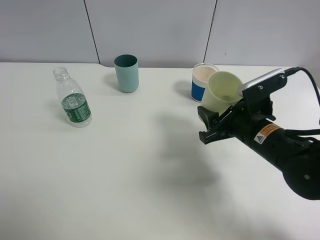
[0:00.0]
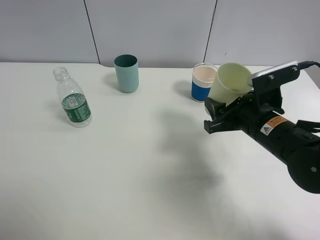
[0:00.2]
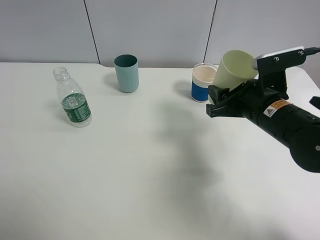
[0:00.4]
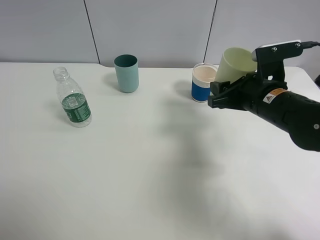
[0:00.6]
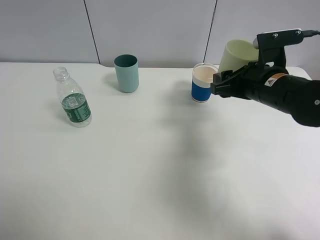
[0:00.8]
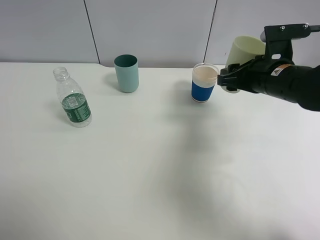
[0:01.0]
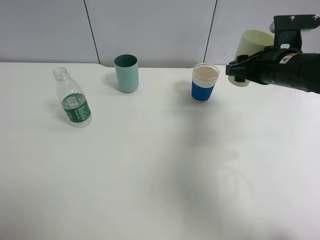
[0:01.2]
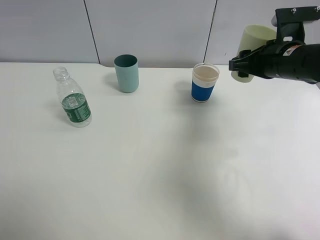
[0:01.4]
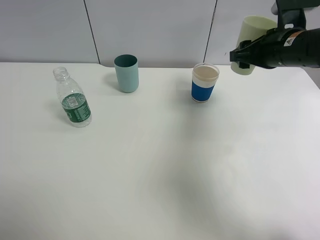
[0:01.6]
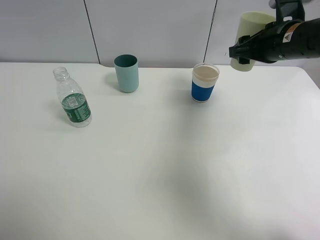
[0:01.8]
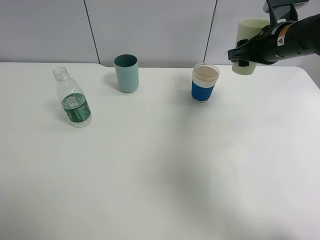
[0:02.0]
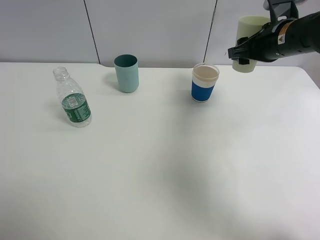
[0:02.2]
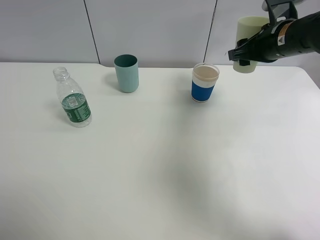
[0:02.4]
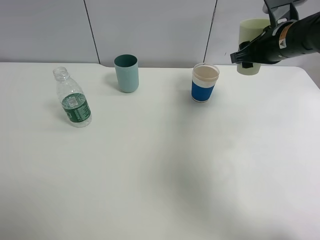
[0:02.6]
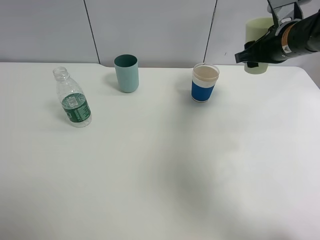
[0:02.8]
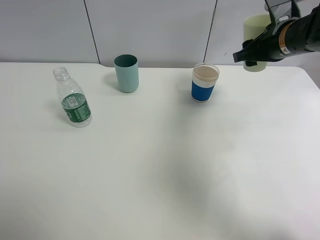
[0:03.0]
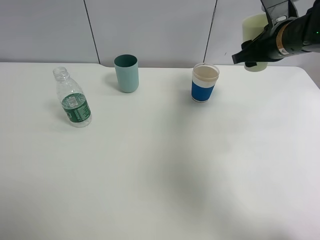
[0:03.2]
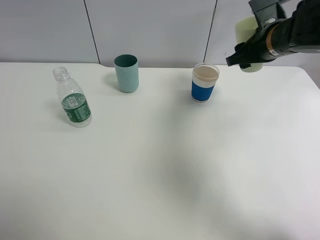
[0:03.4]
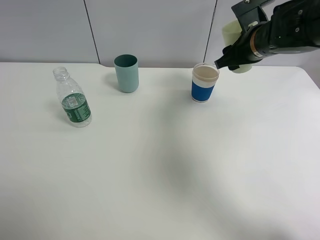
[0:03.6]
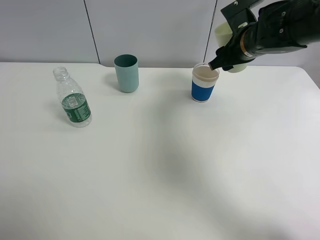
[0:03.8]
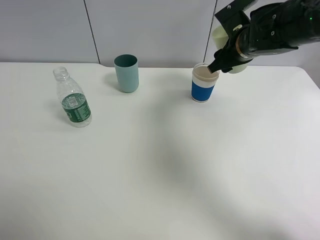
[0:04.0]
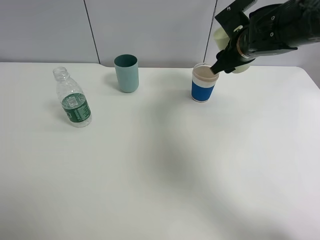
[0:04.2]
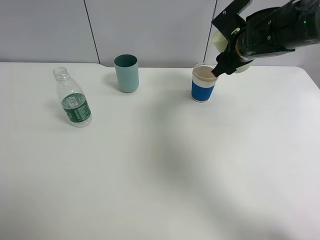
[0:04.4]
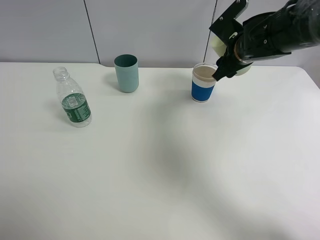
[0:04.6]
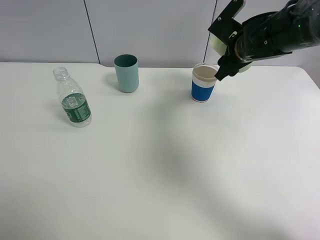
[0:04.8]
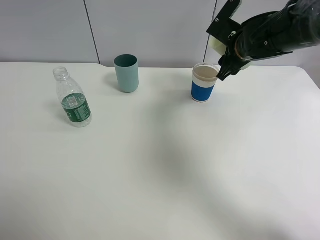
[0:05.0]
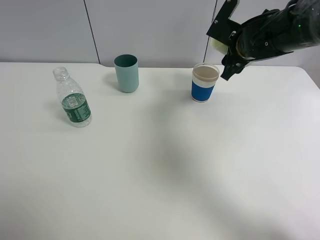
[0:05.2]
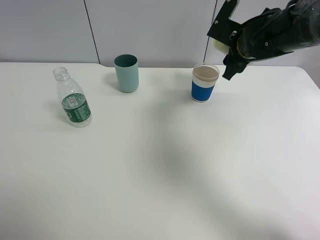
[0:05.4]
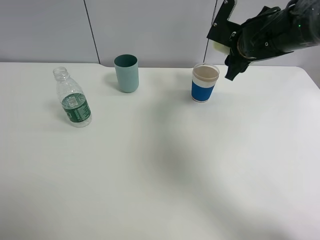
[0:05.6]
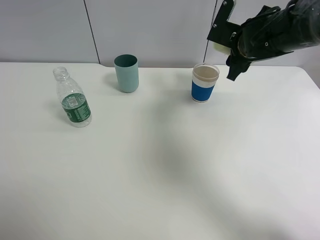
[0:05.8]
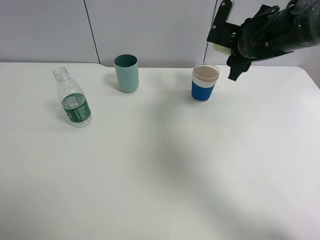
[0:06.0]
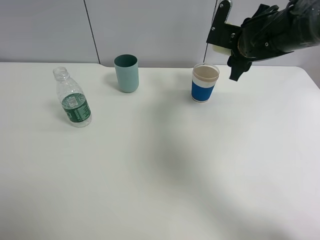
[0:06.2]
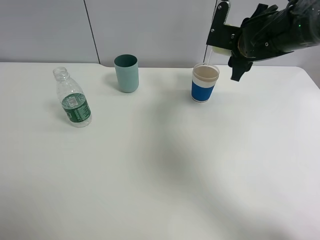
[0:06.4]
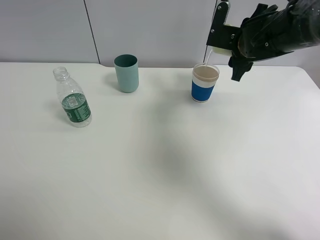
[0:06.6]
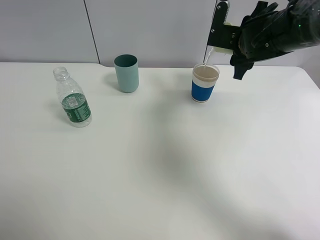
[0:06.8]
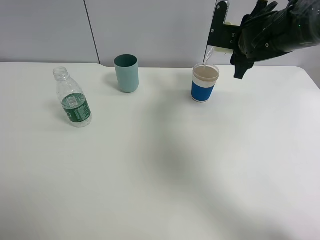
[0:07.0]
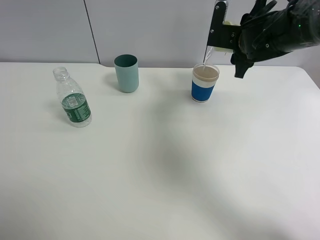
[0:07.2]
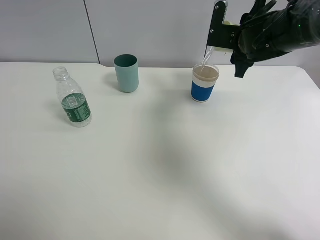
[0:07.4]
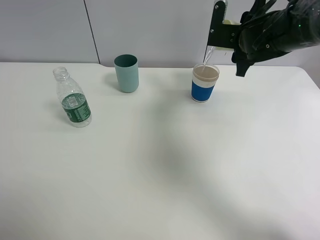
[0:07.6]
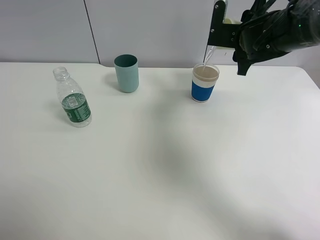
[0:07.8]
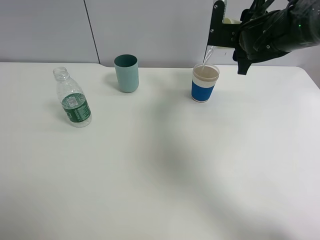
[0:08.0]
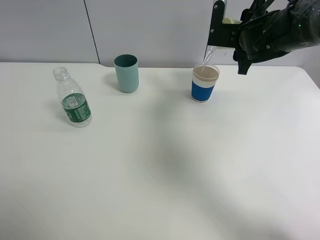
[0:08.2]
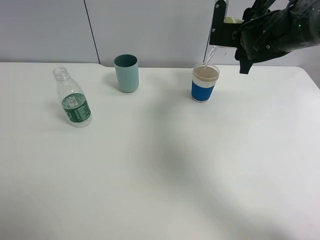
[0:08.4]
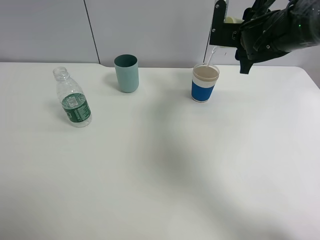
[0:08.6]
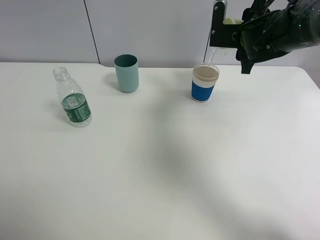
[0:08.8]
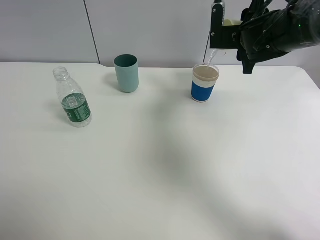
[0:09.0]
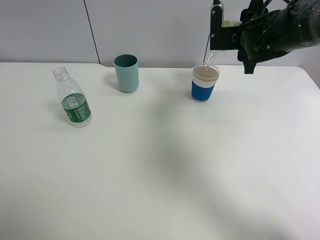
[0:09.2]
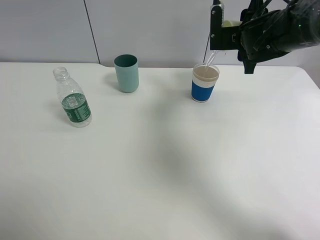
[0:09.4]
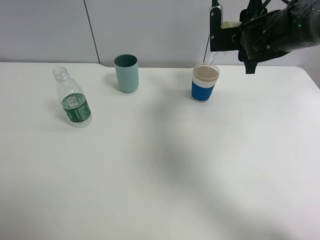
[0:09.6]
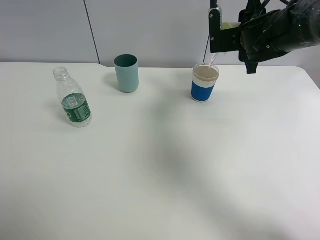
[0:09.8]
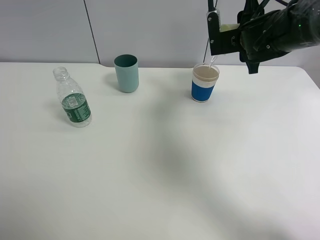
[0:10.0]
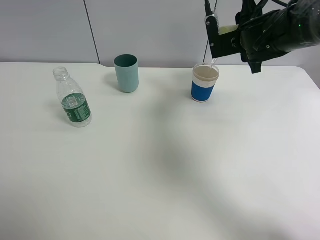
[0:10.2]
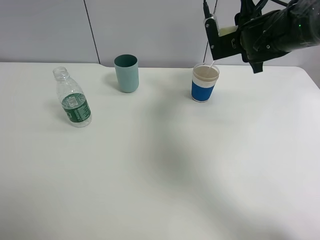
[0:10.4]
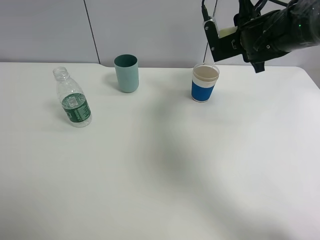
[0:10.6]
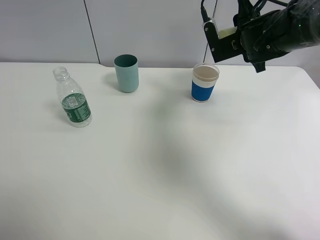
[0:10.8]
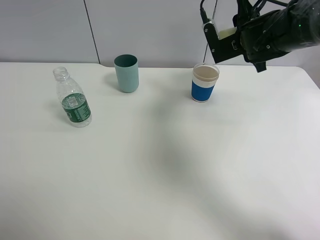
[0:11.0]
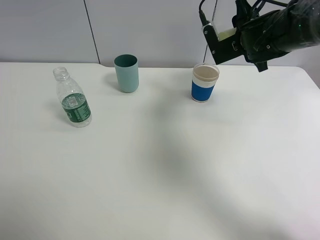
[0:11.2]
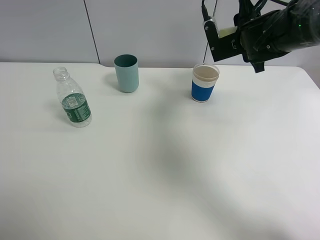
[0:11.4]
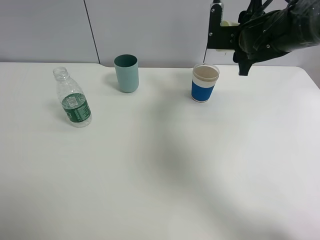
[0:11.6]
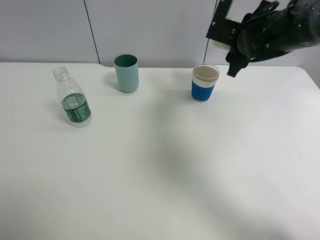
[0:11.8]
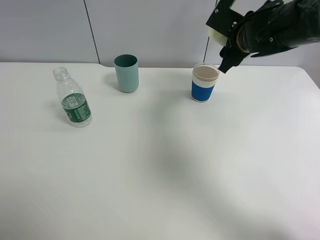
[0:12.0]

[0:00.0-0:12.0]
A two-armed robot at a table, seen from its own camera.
Task of the whole recording: use a clamp to hold the bottle of the drink, pour the beverage into a random cup, then clamp the cup containing the drink and pour the drink into another random cup.
Step, 0:00.8 to 0:11.8: Pour water into the paper cup with right gripper.
0:00.0 to 0:01.6: The right gripper shifts some 15 cm forward, upward and to the right.
0:01.6 to 0:03.0: The grippers make only small movements.
0:03.0 to 0:04.4: The right gripper goes some 5 cm to the left.
0:06.0 to 0:07.6: The grippers make only small movements.
0:07.6 to 0:09.0: There are only small adjustments of the grippers.
0:09.0 to 0:10.4: The grippers stay close to where they were, moving slightly.

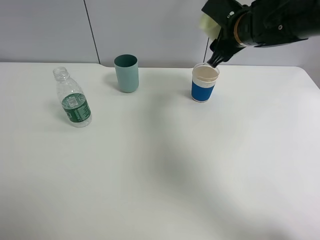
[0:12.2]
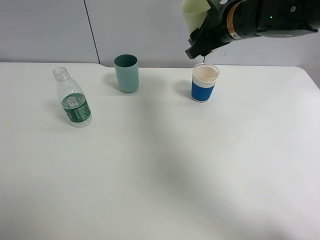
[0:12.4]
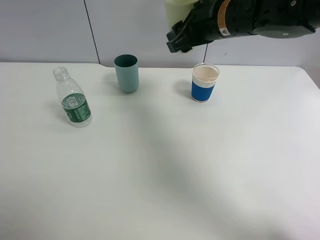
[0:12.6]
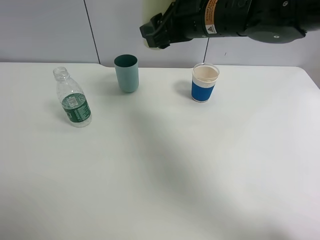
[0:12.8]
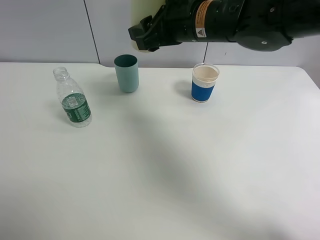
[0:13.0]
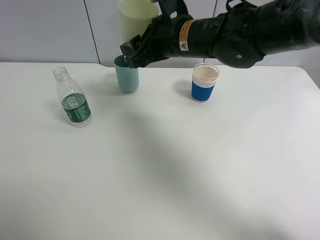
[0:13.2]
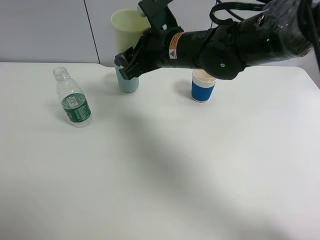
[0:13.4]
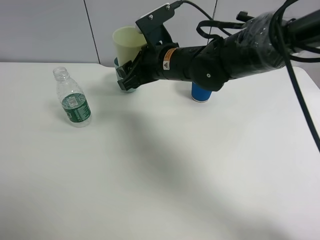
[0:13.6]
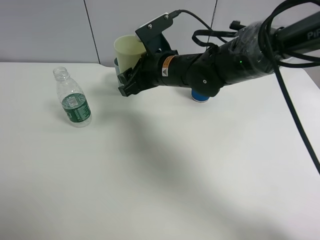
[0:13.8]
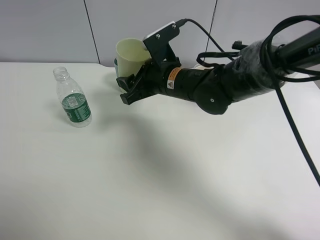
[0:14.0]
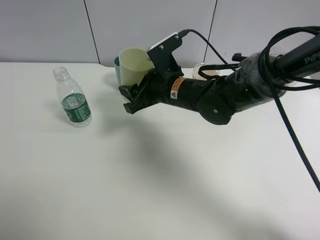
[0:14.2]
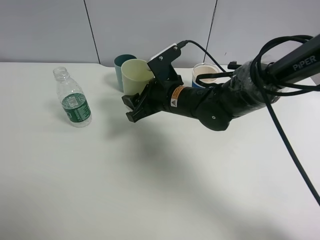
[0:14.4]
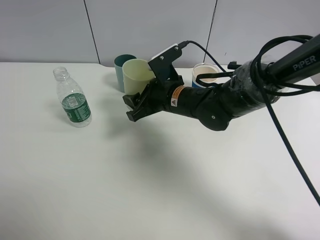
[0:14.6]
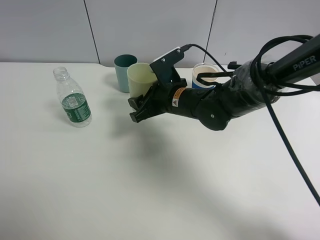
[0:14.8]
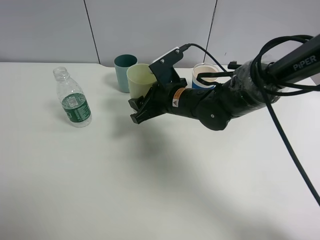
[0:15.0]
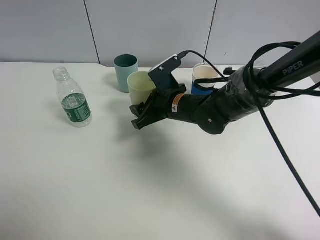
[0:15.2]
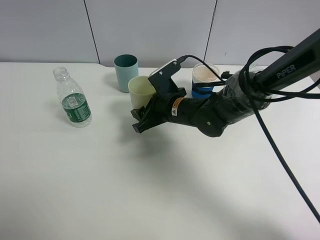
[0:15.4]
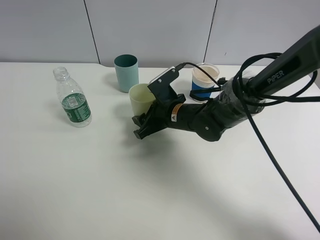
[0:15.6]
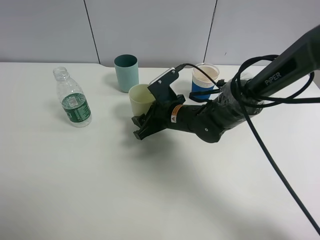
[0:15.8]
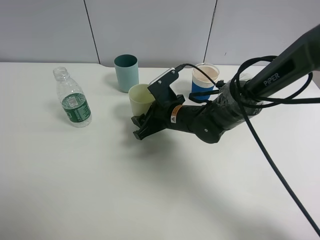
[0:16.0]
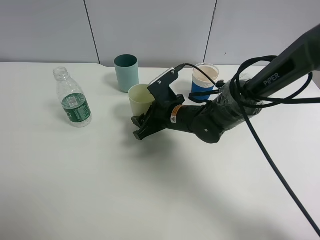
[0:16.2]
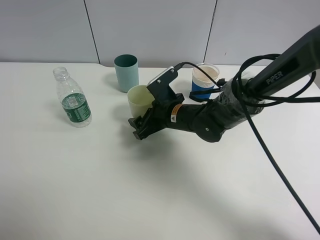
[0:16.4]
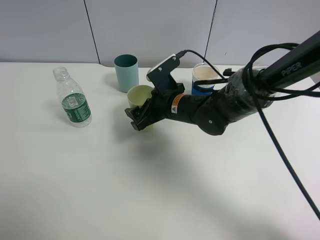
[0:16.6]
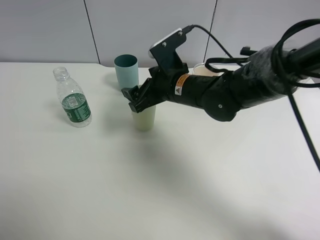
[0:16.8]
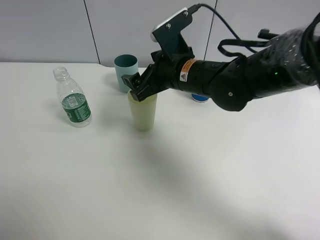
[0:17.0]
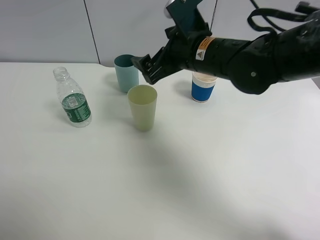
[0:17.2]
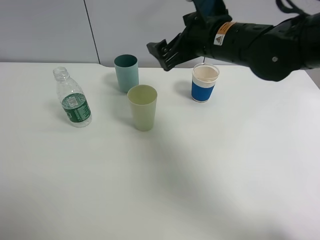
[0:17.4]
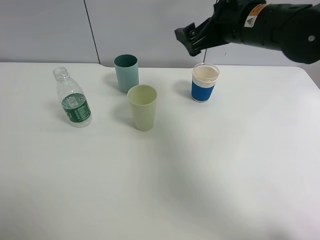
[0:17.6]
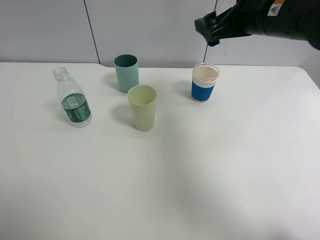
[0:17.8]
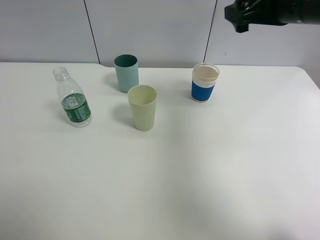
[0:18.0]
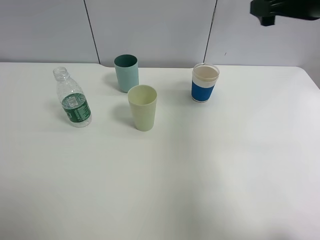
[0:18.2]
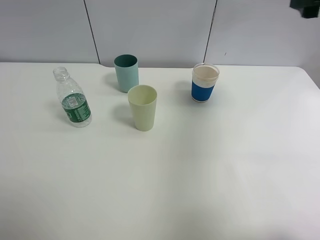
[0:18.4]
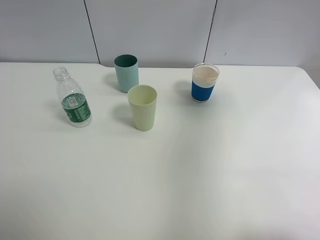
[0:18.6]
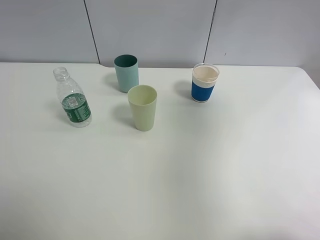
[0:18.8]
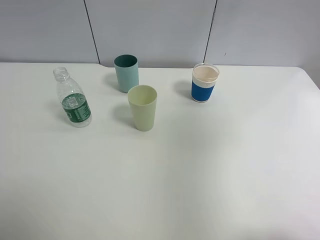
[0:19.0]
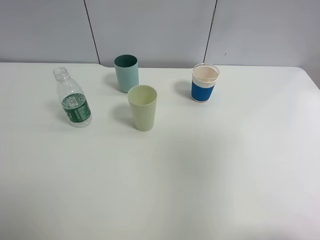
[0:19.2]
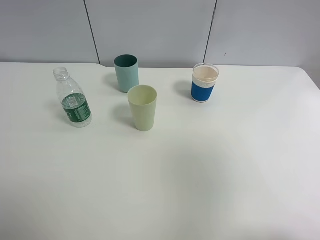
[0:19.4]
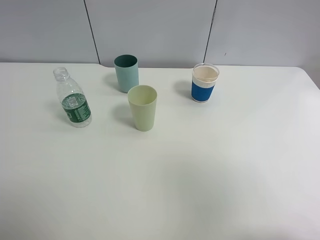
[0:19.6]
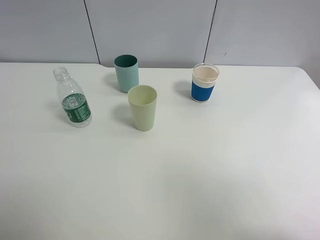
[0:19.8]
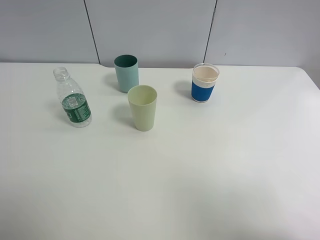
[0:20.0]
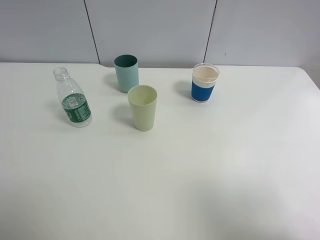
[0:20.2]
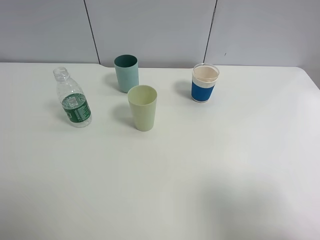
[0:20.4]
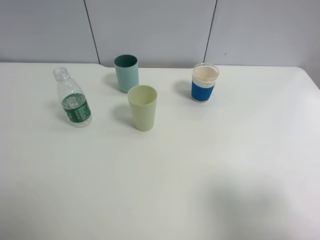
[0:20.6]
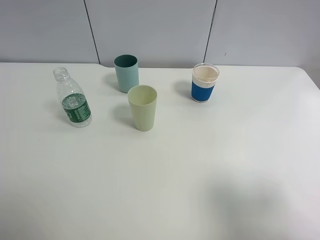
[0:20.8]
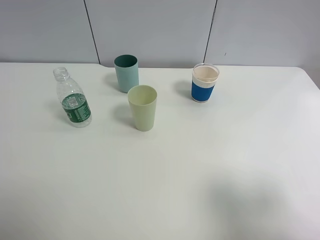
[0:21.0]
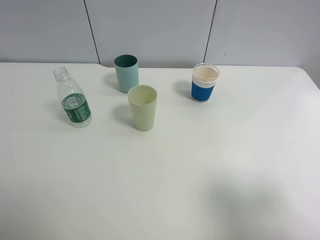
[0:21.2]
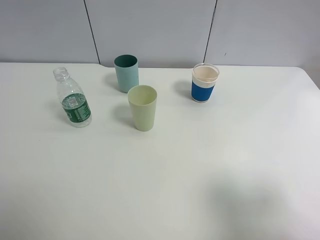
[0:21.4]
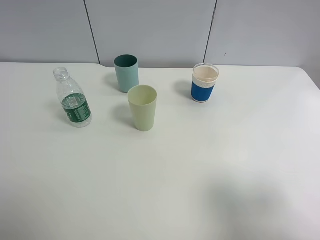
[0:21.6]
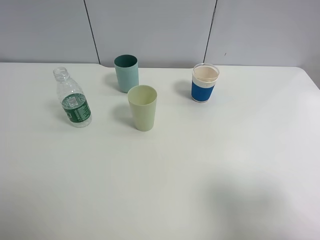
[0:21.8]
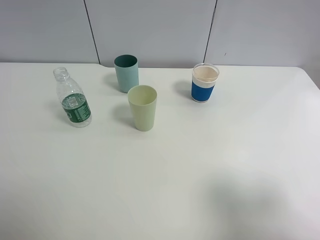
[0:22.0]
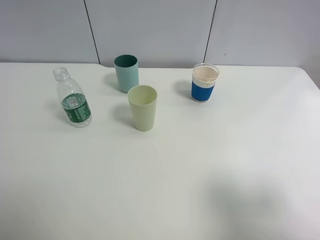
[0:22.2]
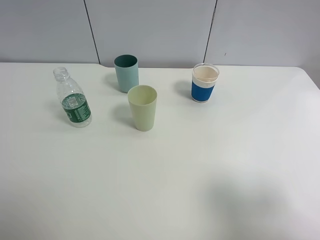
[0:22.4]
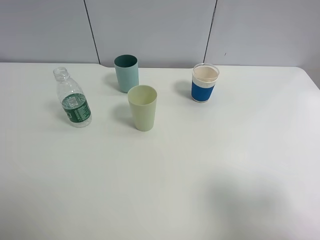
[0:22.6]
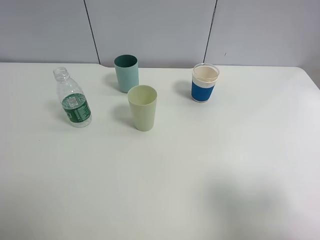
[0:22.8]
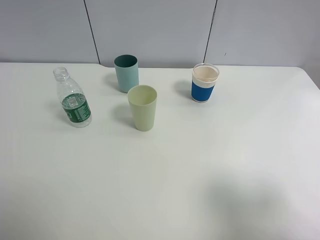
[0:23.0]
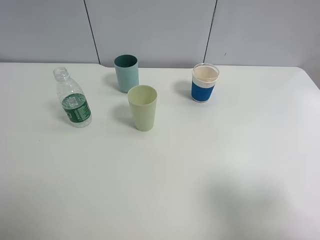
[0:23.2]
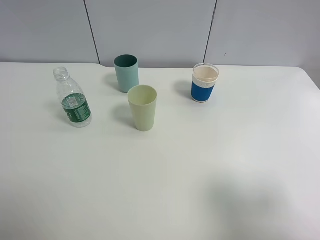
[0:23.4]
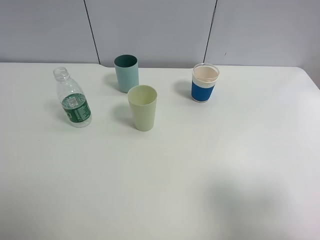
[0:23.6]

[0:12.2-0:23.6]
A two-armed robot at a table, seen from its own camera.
Task of the whole recording: use a clamp to hold the bottle of the drink, pour the beverage into a random cup, then clamp the cup containing the drink and pour the drink into another random cup.
Step, 0:12.2 to 0:16.8: Place the green plastic cup on the table with right gripper.
0:12.2 to 0:13.6: The right gripper goes approximately 15 cm to the left and downward.
0:13.6 to 0:15.0: The right gripper is displaced downward by about 5 cm.
0:15.0 to 0:16.4: The right gripper opens its fingers.
0:16.4 to 0:17.8: The right gripper moves upward and to the right, about 25 cm, and opens up.
0:17.8 to 0:19.4: The right gripper is displaced backward and to the right by approximately 35 cm.
0:19.4 to 0:20.8: The right gripper is displaced downward by about 15 cm.
0:20.8 to 0:23.6: Both grippers stay put.
